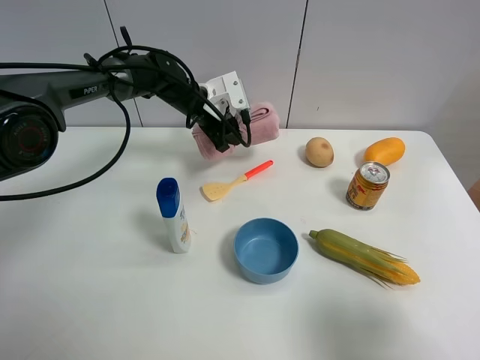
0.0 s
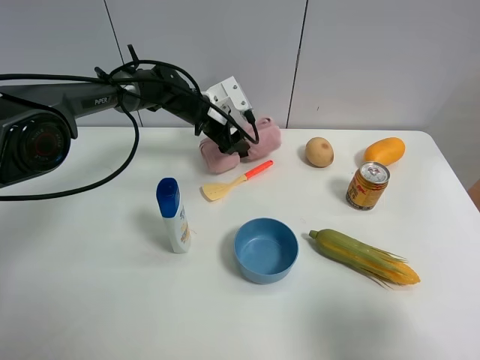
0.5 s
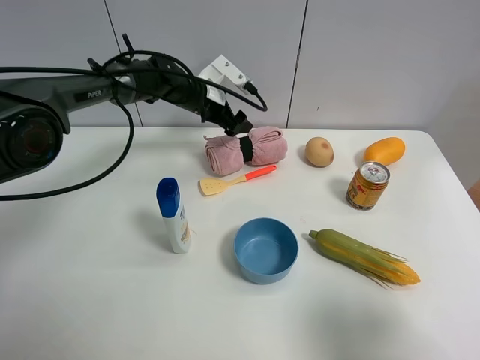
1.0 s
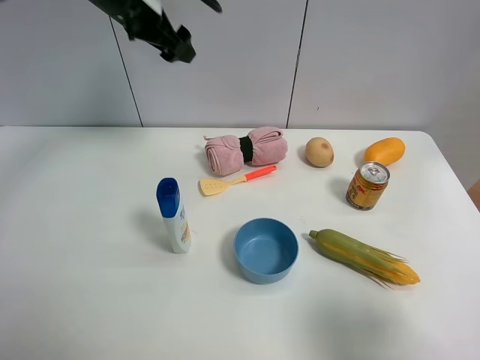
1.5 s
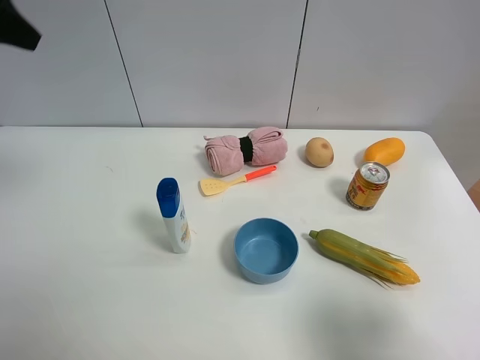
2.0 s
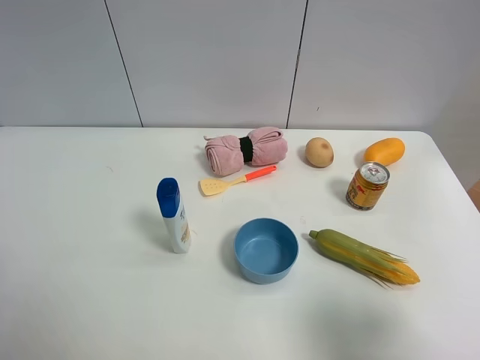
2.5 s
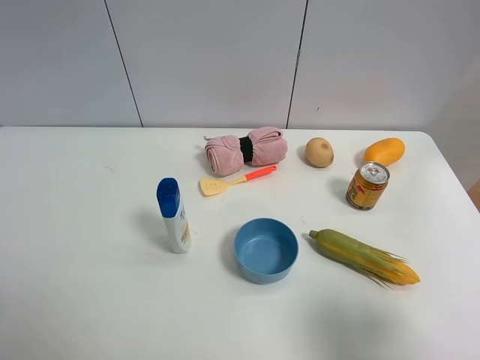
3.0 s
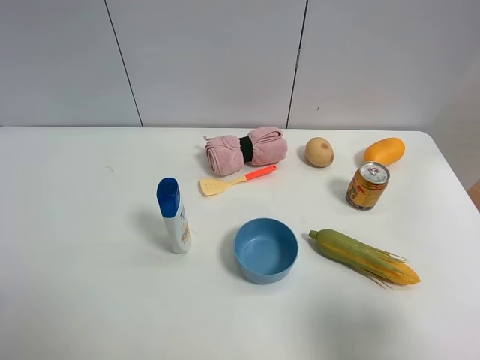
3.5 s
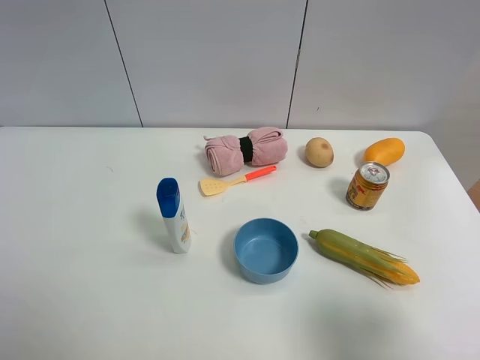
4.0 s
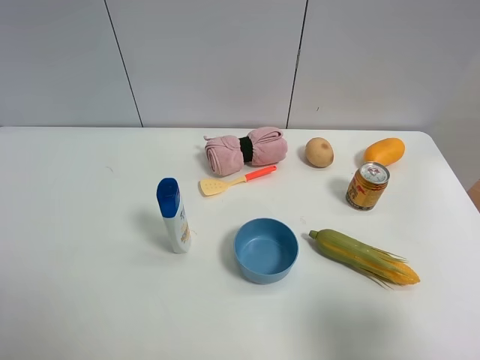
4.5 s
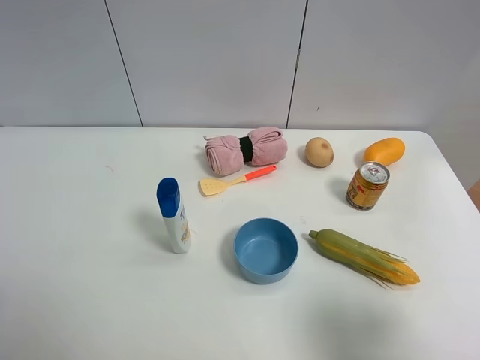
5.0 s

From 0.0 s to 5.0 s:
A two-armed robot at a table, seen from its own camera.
Task of the whole recording: the gripper move the object.
From 0.0 s to 2.5 s: The left gripper moves backward, to the left and upward, approximately 50 cm, and opens its fingers.

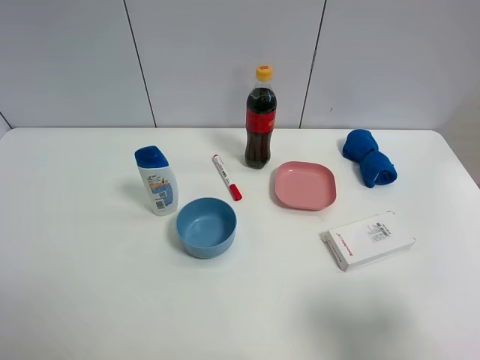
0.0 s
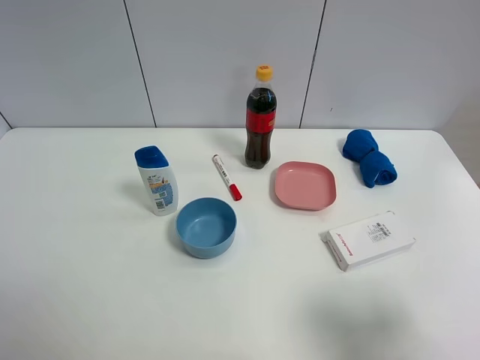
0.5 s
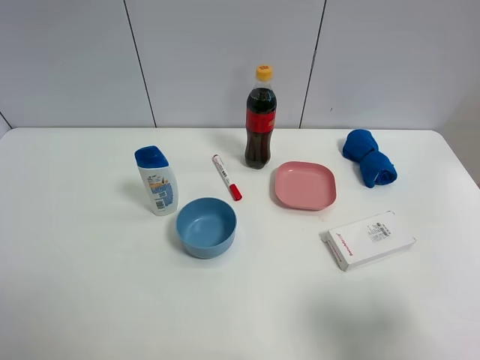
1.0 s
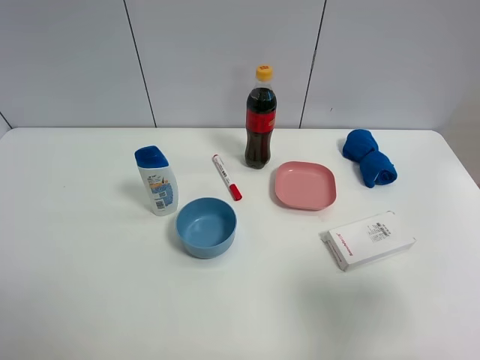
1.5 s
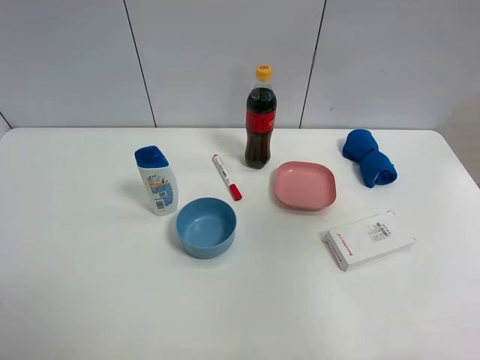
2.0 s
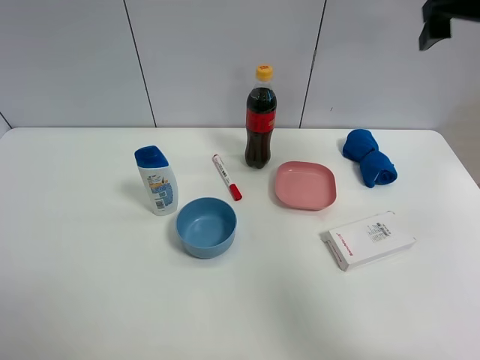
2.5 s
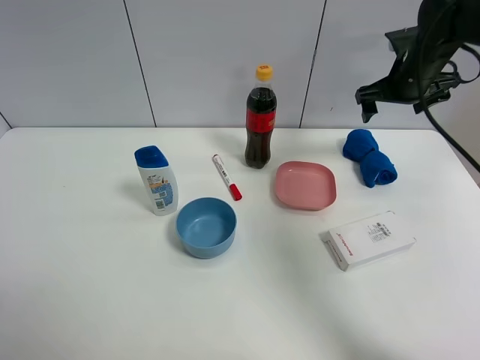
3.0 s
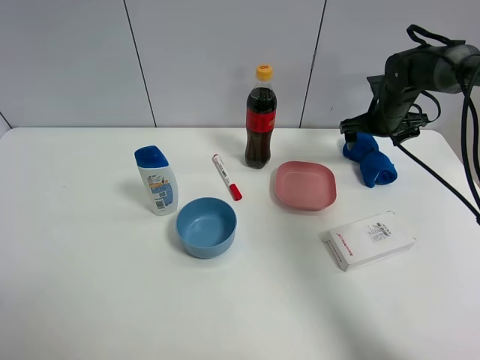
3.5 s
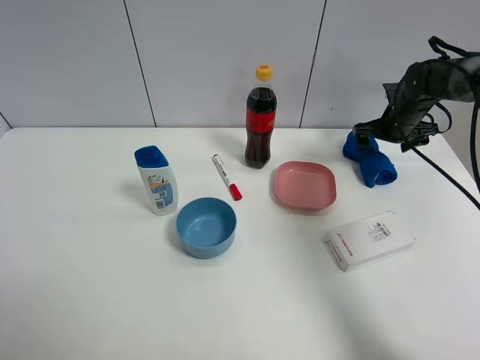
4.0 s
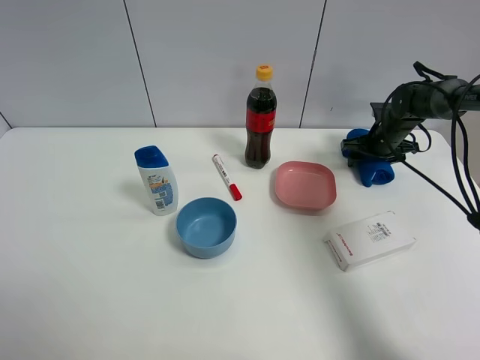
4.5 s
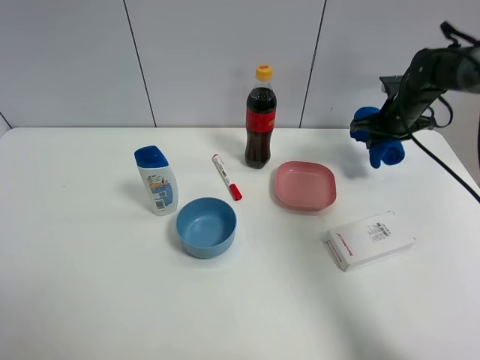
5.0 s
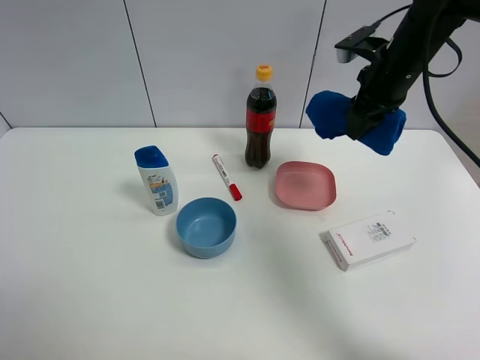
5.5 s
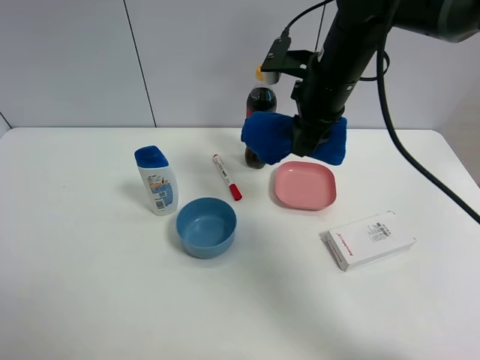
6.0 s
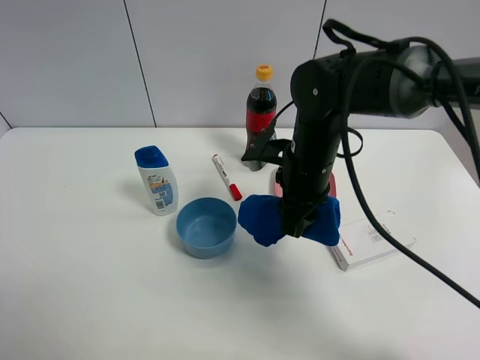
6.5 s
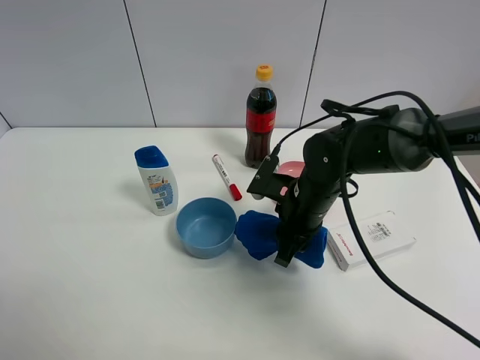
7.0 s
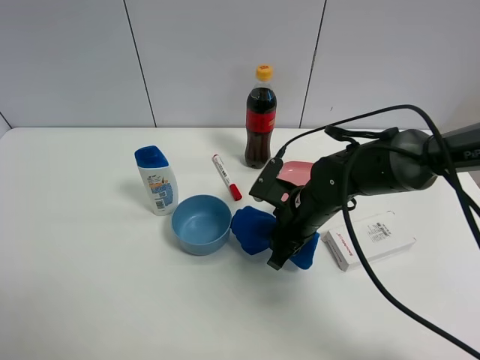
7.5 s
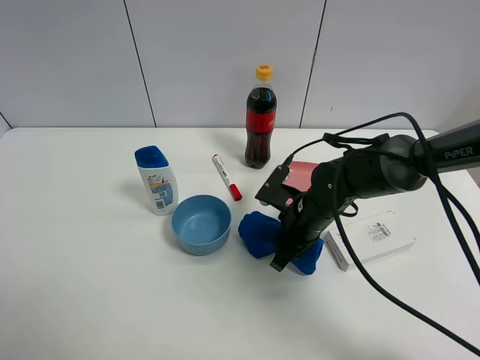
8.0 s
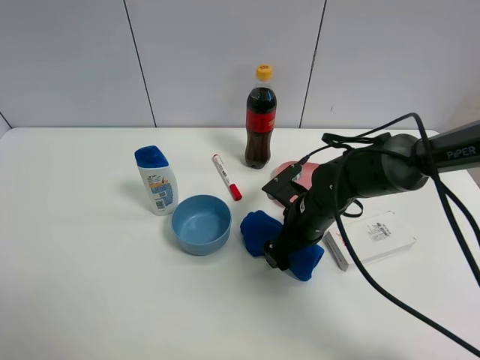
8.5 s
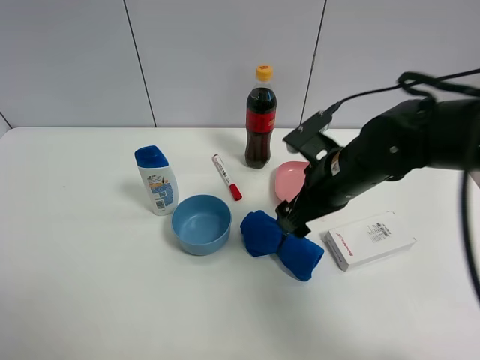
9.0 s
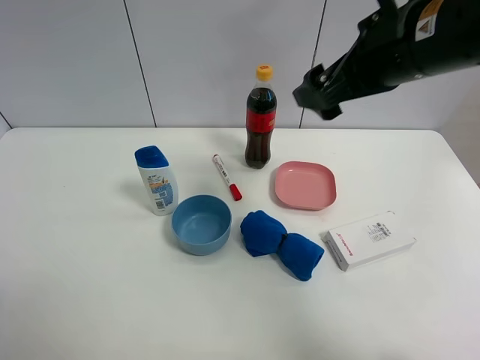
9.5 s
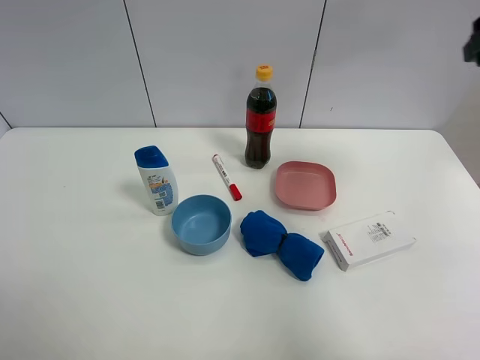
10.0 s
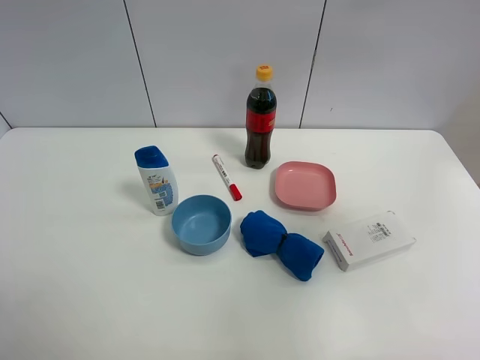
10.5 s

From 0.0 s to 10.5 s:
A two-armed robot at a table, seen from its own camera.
Task of the whole recording: the gripper move the object.
Step, from 0.0 s to 4.5 s: Grasp the blue towel with the right gripper.
Step, from 5.0 s to 8.5 s: Place the blue towel on the table with the right gripper.
From 0.0 s to 2.0 s: The right gripper is displaced upward and forward by roughly 25 cm.
From 2.0 s to 4.0 s: The right gripper heads forward and downward, covering some 40 cm.
From 4.0 s to 6.5 s: The right gripper is displaced to the left and backward by about 30 cm, and closes.
From 6.5 s to 8.5 s: The right gripper heads downward, covering some 10 cm, and opens its fingers.
From 8.5 s to 10.5 s: The right gripper travels upward, to the right and backward by roughly 50 cm.

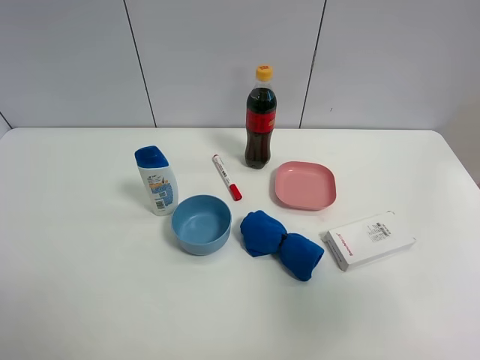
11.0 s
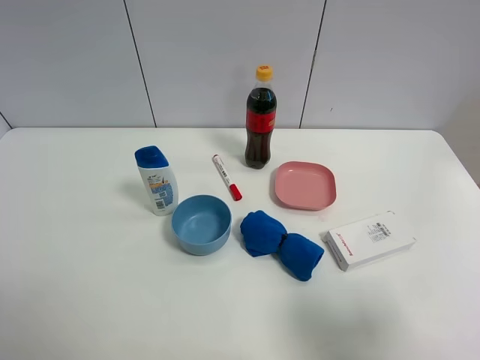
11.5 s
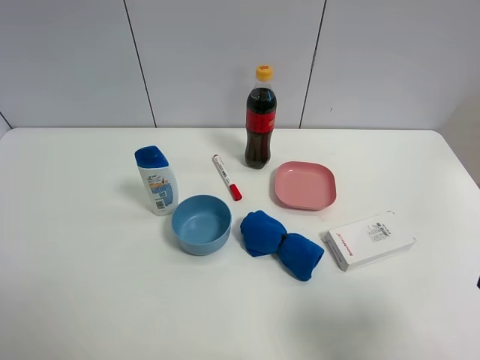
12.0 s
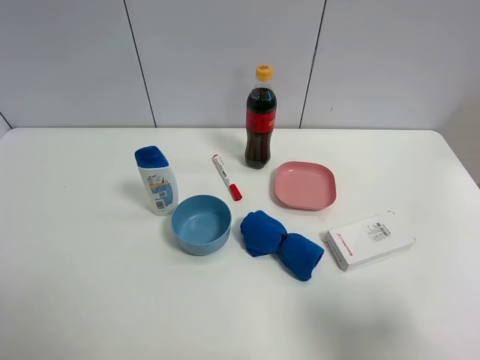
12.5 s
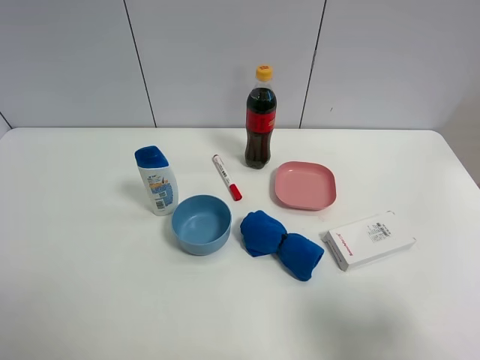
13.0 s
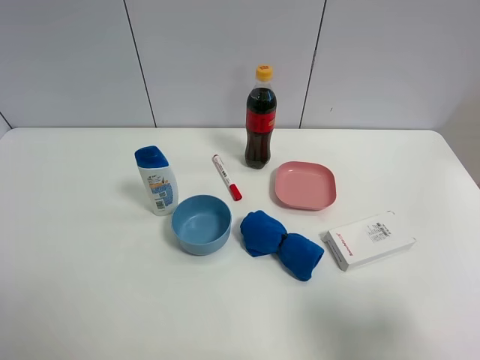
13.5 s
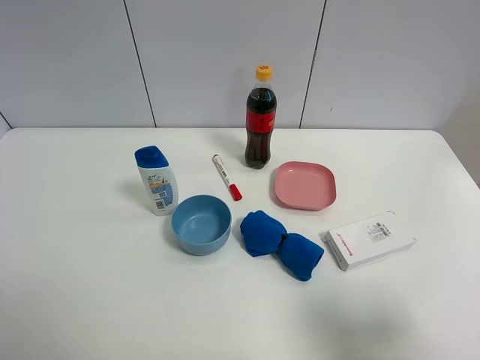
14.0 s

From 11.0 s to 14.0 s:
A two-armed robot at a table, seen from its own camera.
Task of the whole recording: the gripper move the object.
From 11.0 s to 12.5 s: The right gripper moves downward, roughly 10 cm.
From 12.5 s to 14.0 s: The two grippers keep their place.

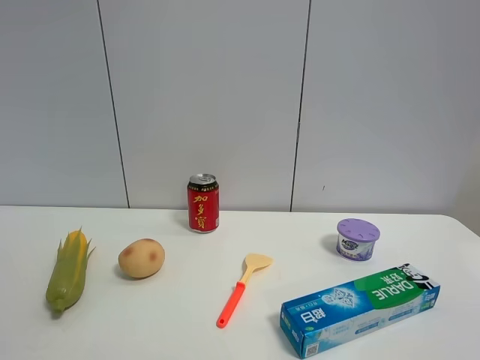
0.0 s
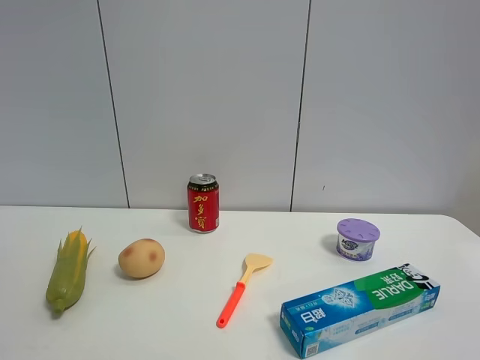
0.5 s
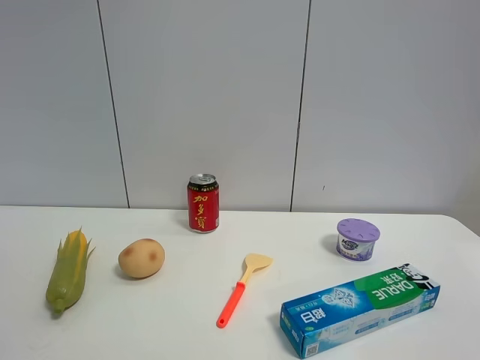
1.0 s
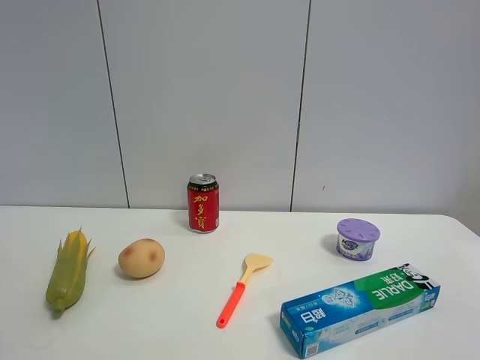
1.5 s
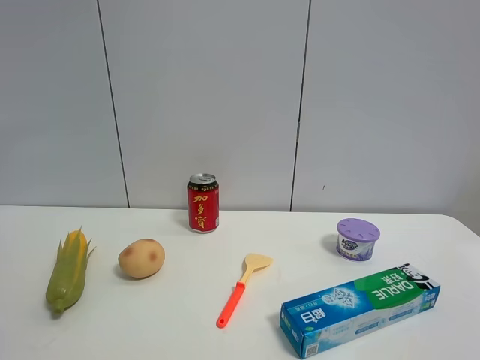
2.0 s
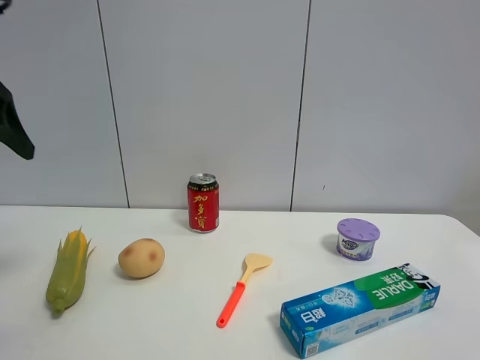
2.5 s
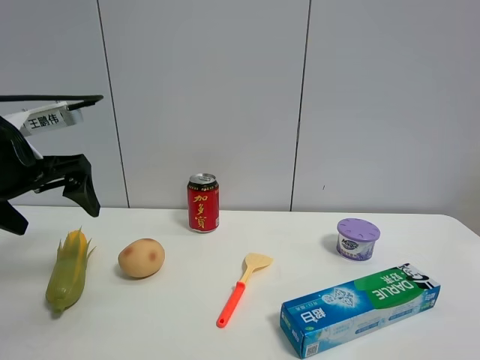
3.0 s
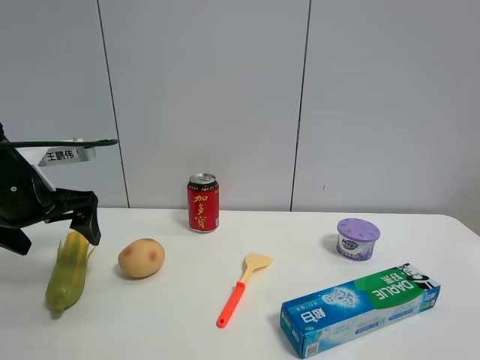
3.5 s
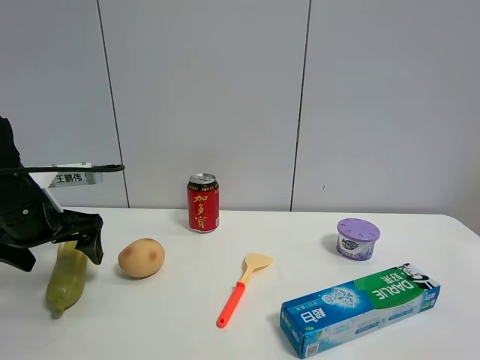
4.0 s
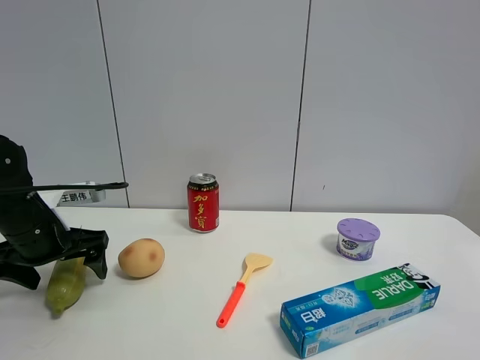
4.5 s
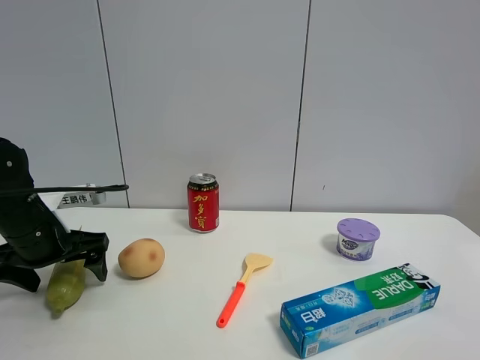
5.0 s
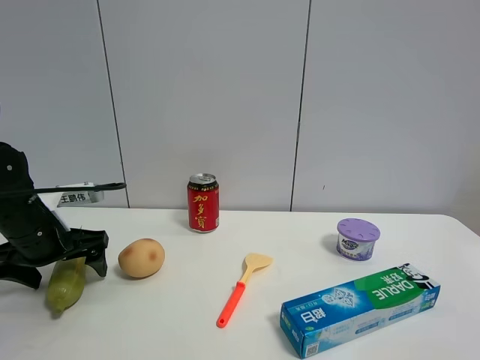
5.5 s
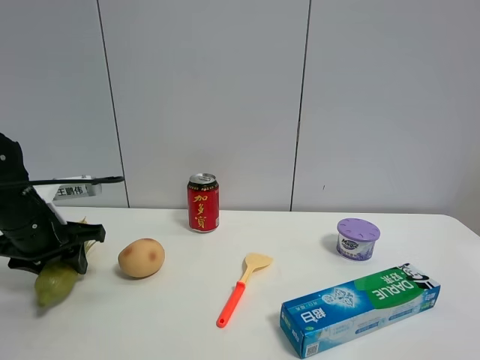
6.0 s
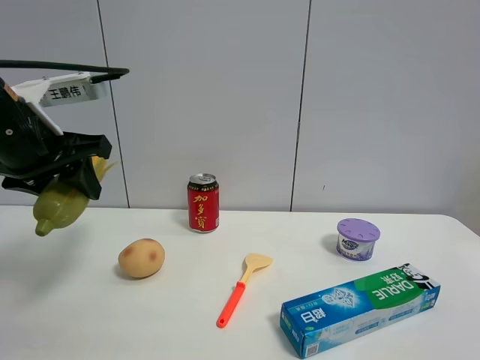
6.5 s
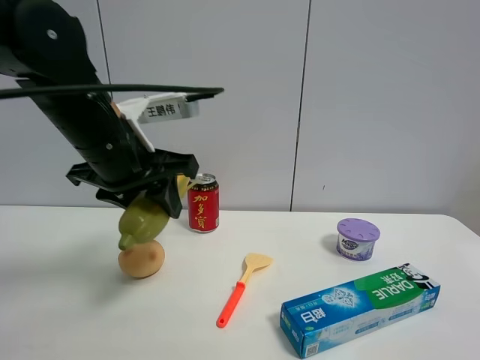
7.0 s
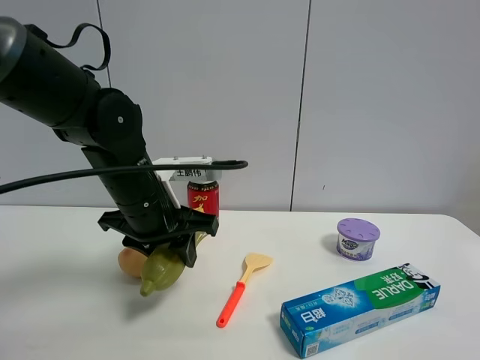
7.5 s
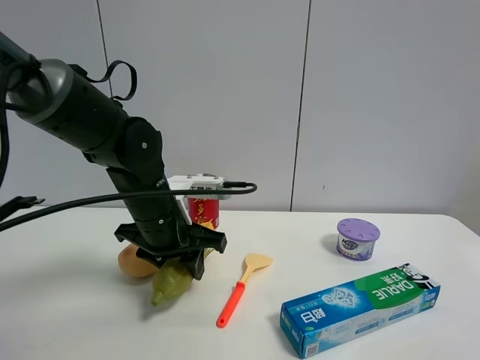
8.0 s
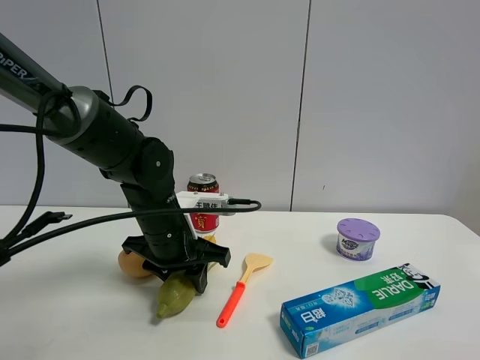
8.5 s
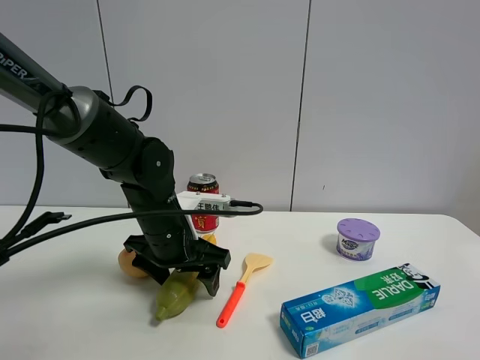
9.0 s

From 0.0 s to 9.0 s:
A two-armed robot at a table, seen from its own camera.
Task of the whole recording: the gripper move the object.
Step, from 0.0 s to 5.5 s: Grasp the corn with the left gripper.
From 2.0 s to 4.5 s: The left gripper heads downward and forward, covering about 30 cm.
From 4.5 s to 7.0 s: The left gripper shifts approximately 20 cm to the right and upward, and closes its fingers.
From 7.0 s to 9.0 s: The left gripper shifts about 10 cm downward, and opens up.
